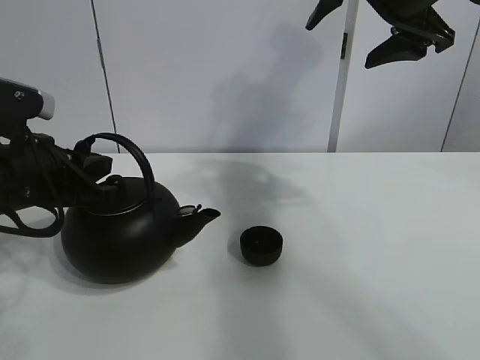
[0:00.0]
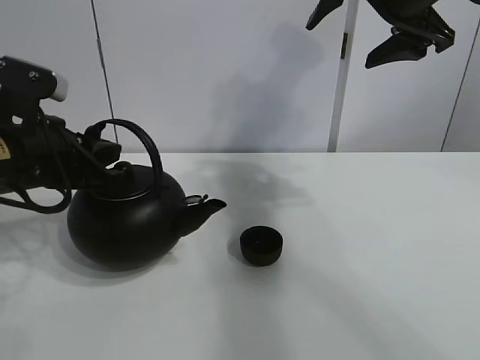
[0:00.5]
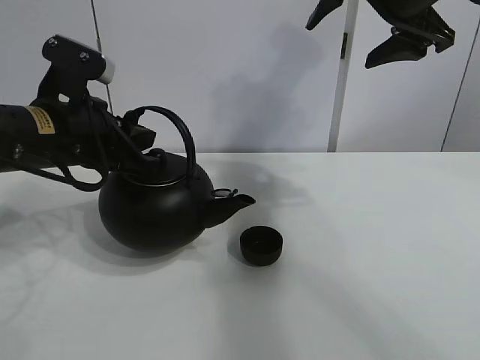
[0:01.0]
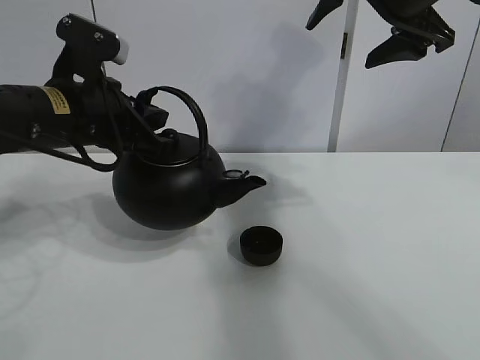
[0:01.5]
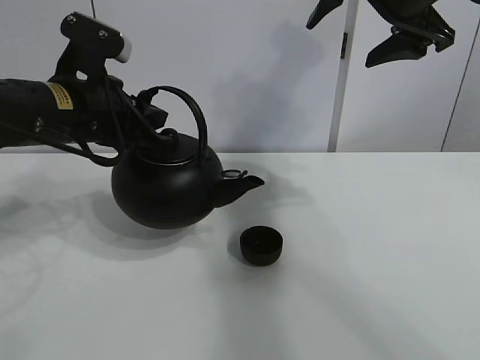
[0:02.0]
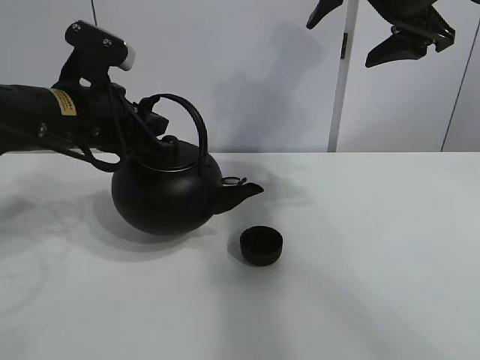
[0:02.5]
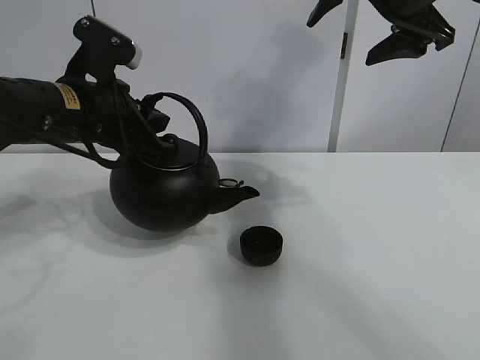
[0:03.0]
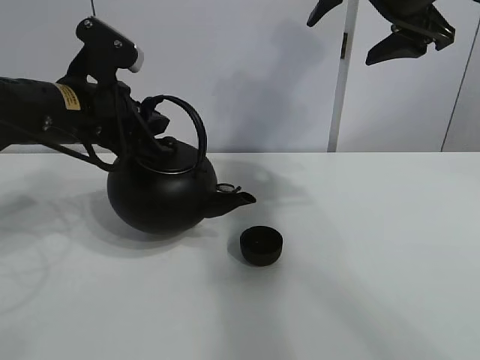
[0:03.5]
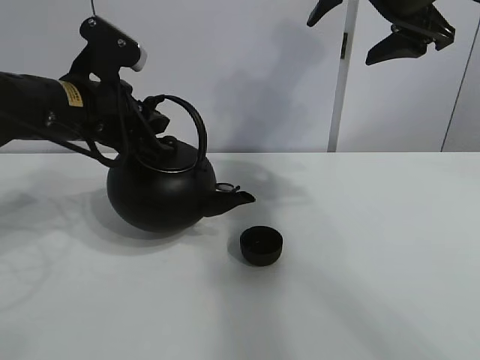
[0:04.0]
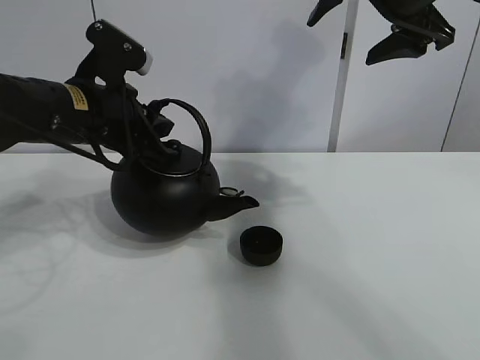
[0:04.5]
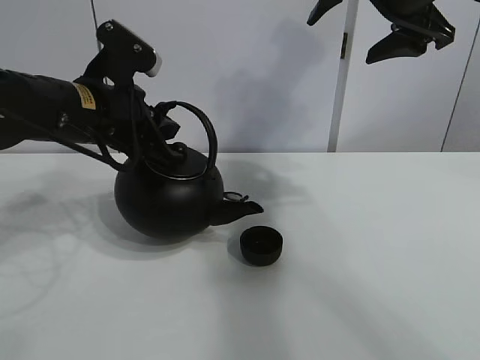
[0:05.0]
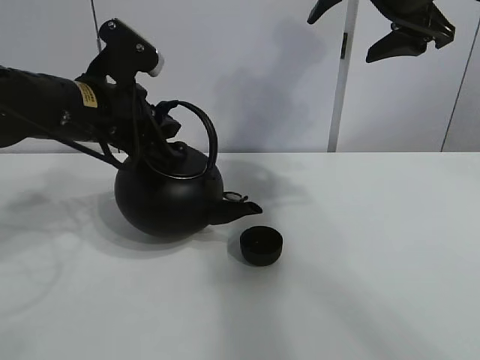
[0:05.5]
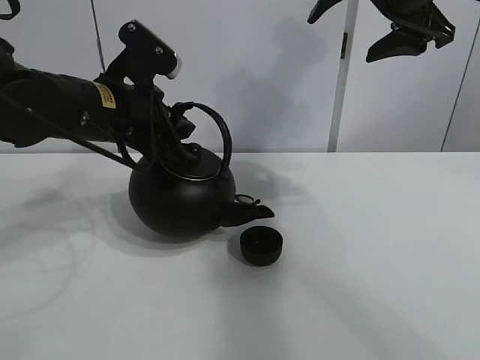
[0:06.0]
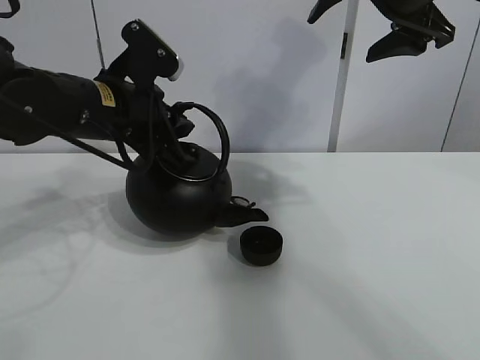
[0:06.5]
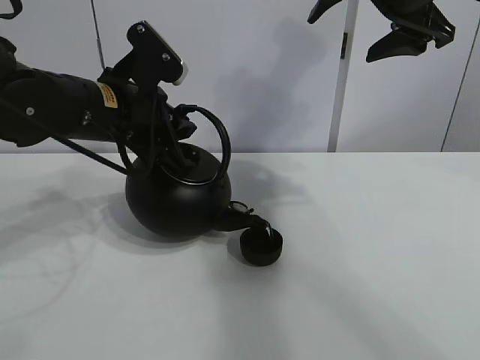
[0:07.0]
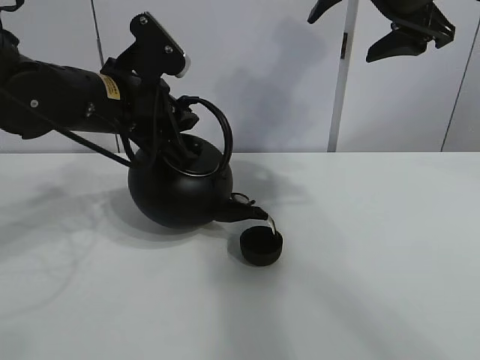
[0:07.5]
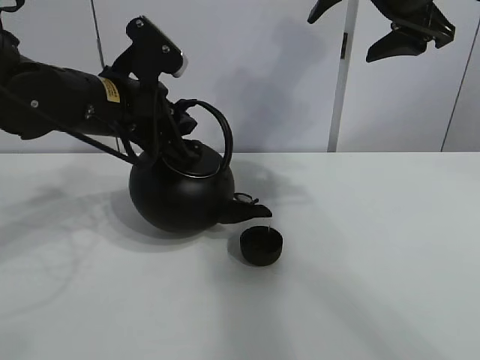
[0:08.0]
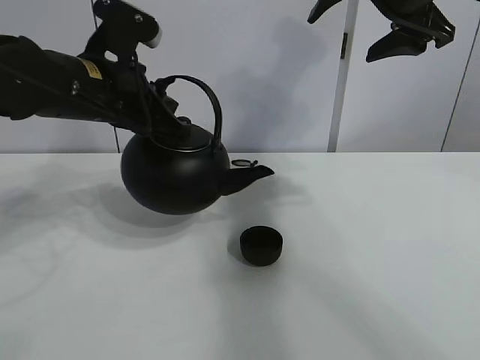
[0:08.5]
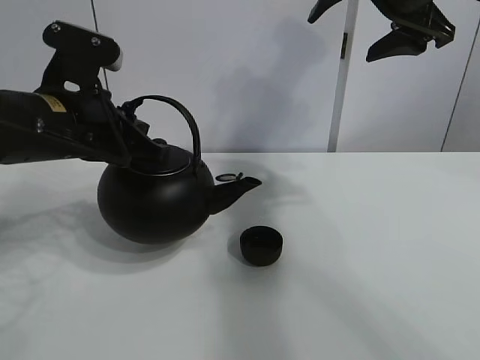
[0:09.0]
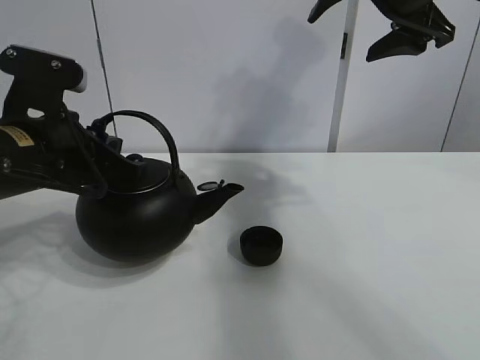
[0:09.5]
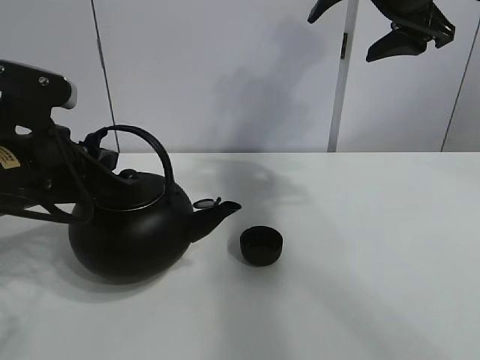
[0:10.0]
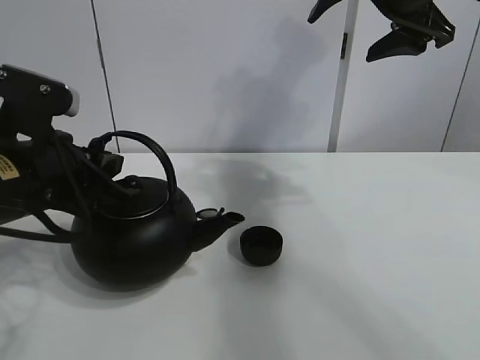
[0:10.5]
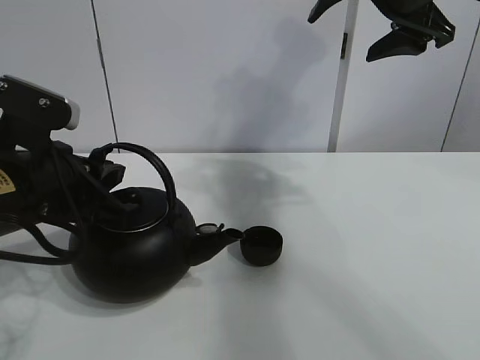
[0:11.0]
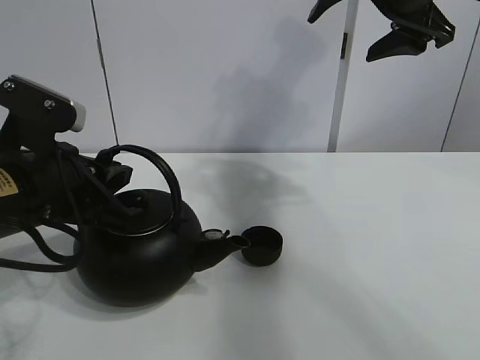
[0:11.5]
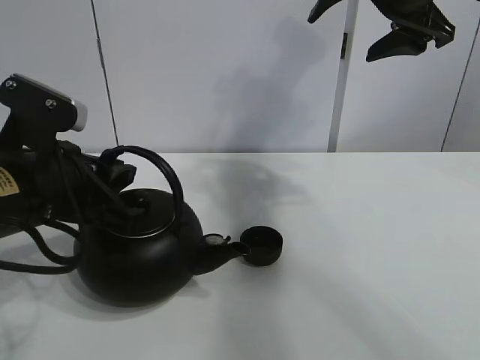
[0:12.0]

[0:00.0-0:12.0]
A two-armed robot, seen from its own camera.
Task of the whole recording: pour tea into the teacup.
Step, 0:00.0 to 0:08.0: Pour tea into the teacup with the left gripper.
0:00.0 to 0:02.0: The left gripper heads to the right and upward, covering some 5 cm.
0:02.0 to 0:06.0: The grippers move only a little.
0:06.0 to 0:08.0: The grippers make only small movements.
0:08.0 to 0:10.0: The left gripper heads backward and to the left, covering some 10 cm.
0:10.0 to 0:12.0: The grippers stay close to where they were, moving slightly.

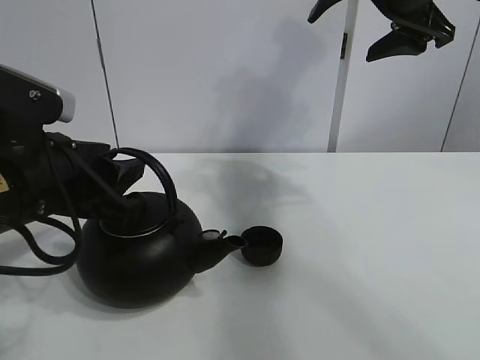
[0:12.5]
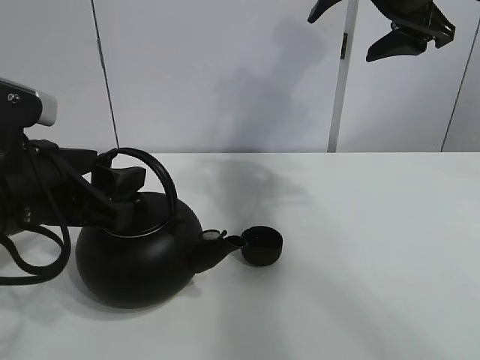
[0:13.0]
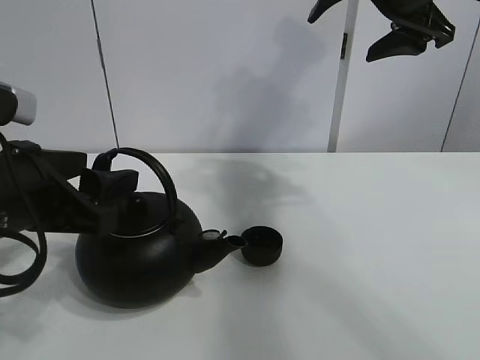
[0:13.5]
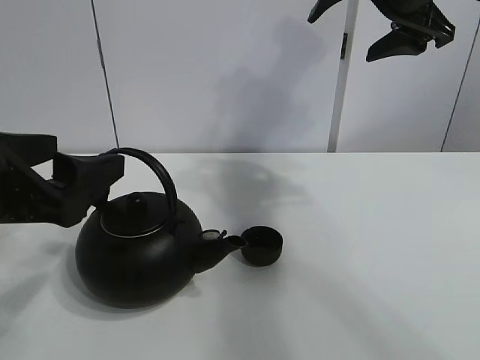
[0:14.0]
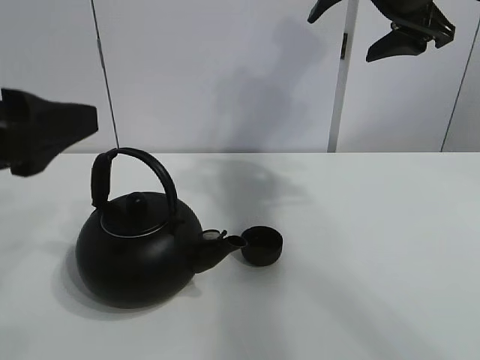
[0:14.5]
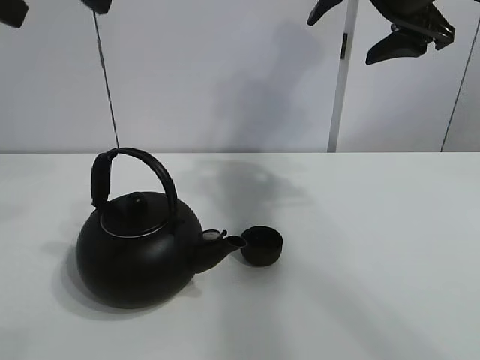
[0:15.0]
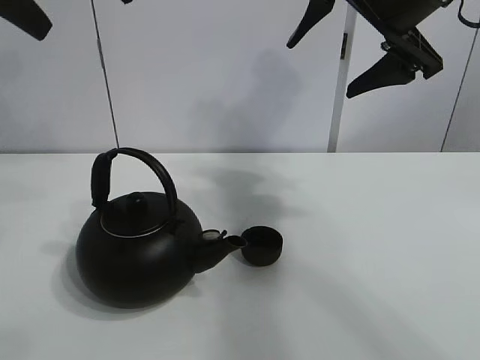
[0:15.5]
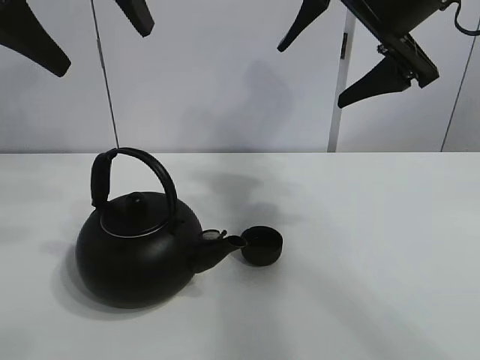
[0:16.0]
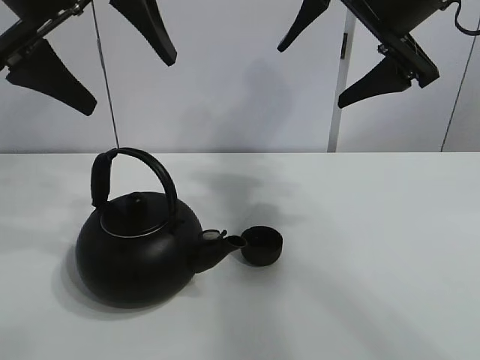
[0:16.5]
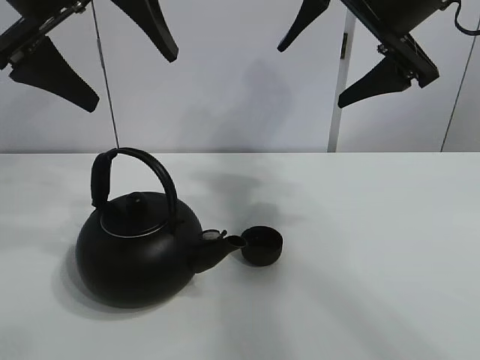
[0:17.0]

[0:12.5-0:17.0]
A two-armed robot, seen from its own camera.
Task of the whole recording: pour tea into the teacup.
0:12.5 to 0:14.5: The left gripper shifts roughly 10 cm upward and backward, and opens.
0:14.5 to 0:17.0: The left gripper goes roughly 15 cm forward and upward.
